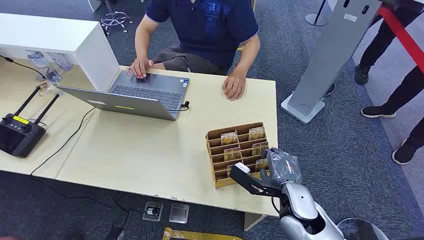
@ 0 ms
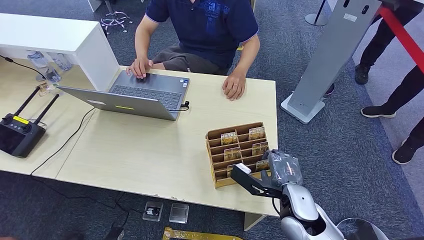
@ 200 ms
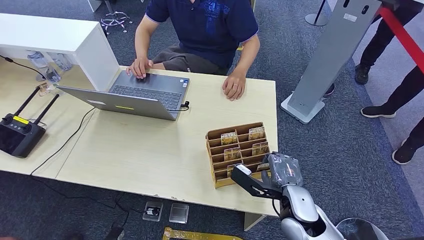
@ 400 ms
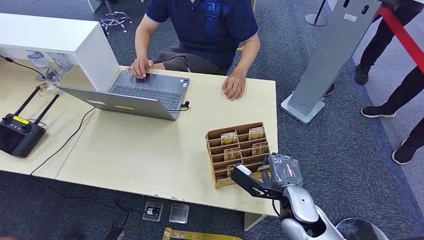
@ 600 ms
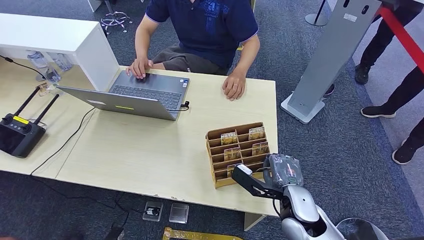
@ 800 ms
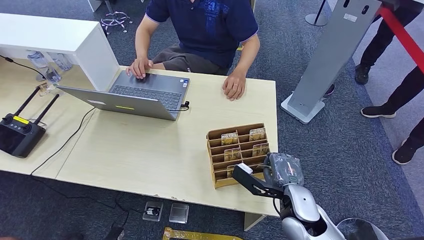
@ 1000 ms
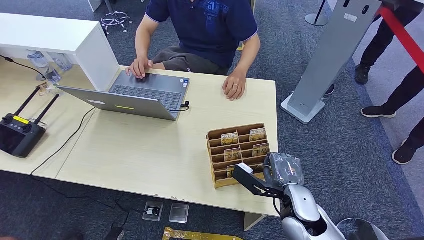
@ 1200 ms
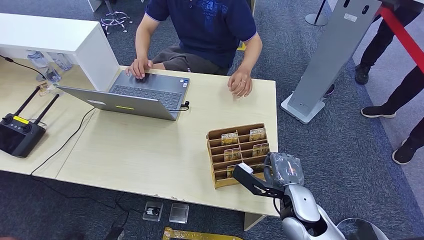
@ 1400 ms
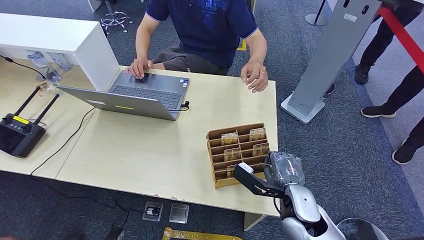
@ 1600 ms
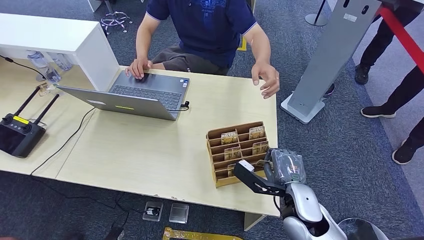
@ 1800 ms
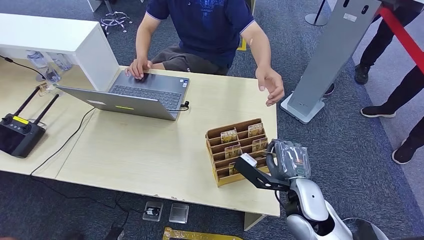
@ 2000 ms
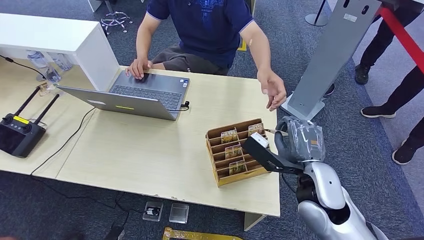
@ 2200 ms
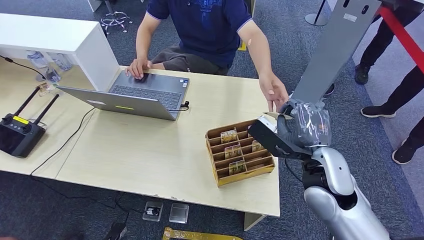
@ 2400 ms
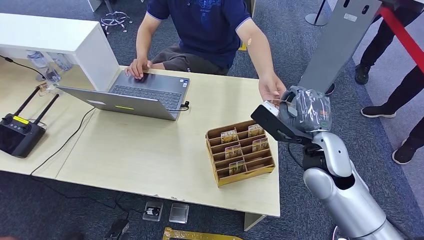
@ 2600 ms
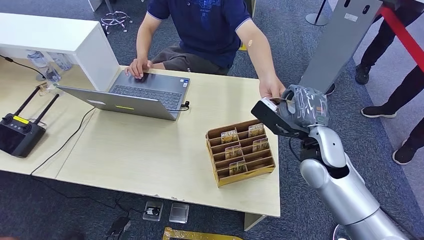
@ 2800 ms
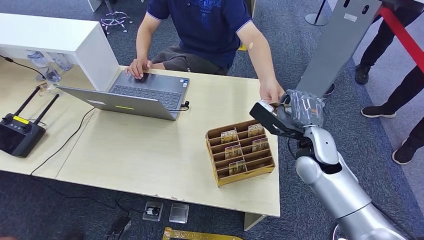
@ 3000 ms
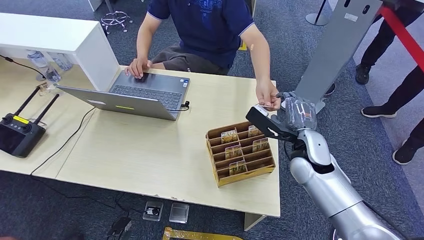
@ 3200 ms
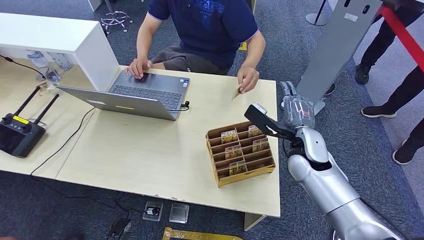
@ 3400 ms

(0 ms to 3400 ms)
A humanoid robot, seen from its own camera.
Step, 0 ms - 2000 ms: Pick up the key card from the card box.
Step, 2600 ms - 3400 ms: Hand the key card to the target.
1600 ms - 3400 ms: The right hand heads forward and upward, covering about 15 cm.
